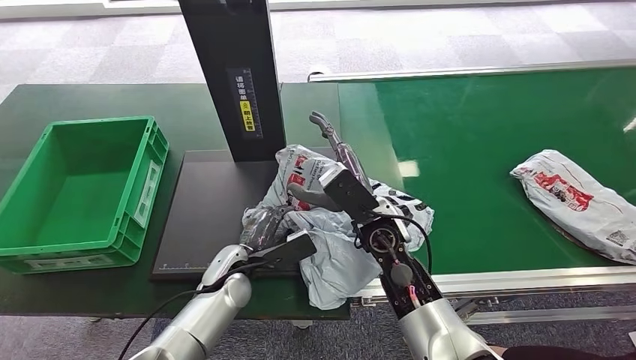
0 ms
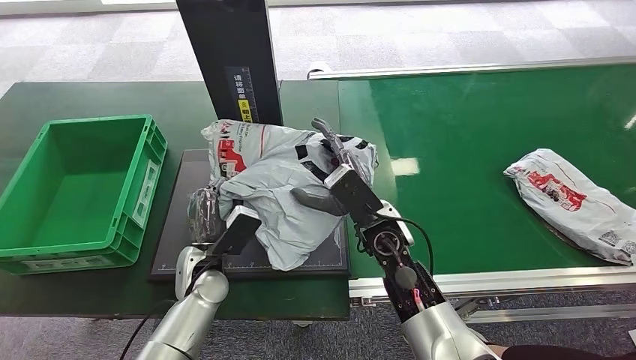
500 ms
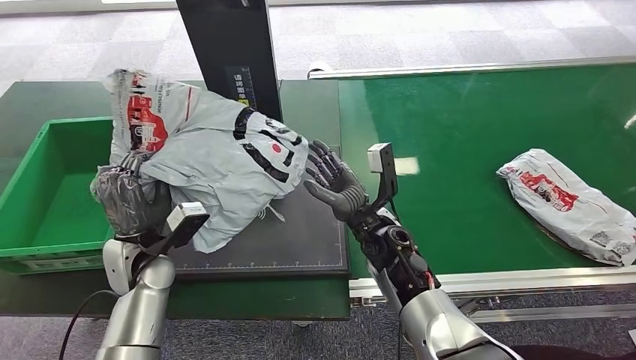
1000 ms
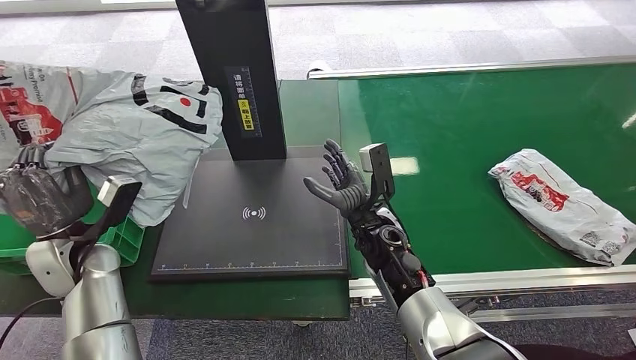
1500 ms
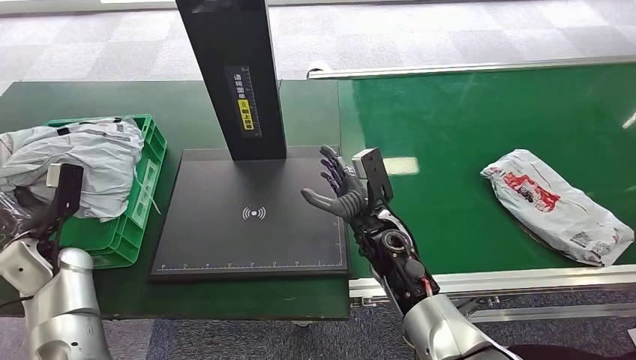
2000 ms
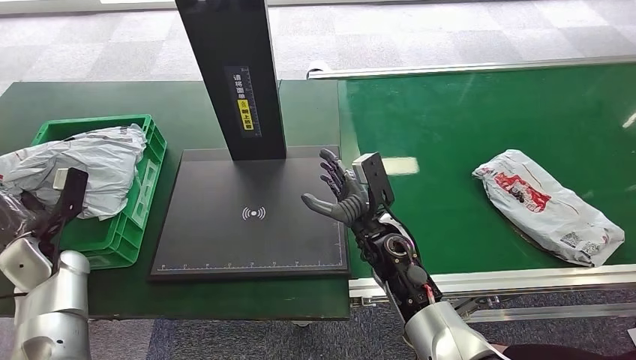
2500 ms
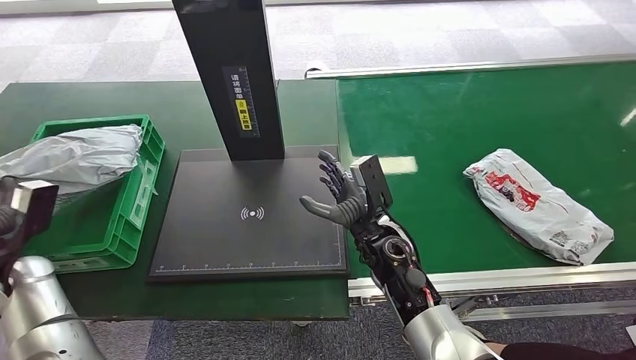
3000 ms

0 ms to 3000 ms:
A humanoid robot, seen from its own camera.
Task of the whole recording: Weigh the package on the weighing device and place it in the left basket.
Step, 1500 ms to 3000 ms: Place the package into the parcel locker.
